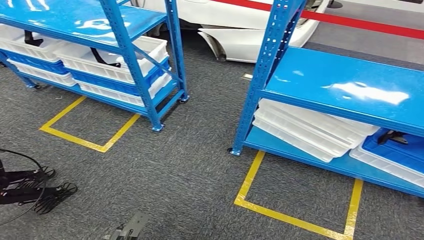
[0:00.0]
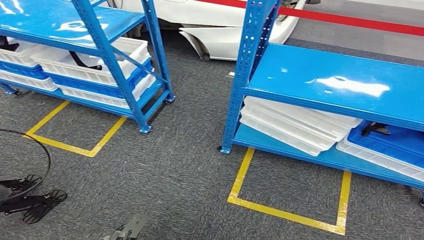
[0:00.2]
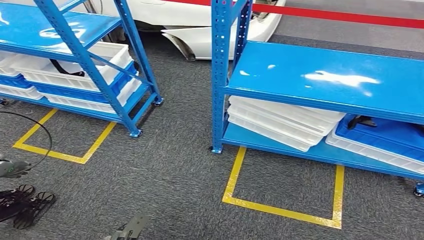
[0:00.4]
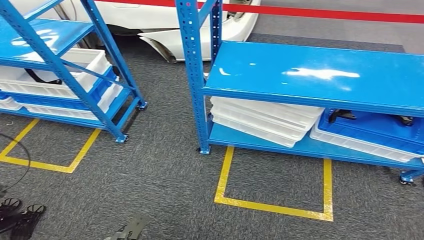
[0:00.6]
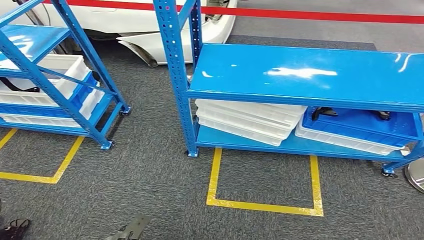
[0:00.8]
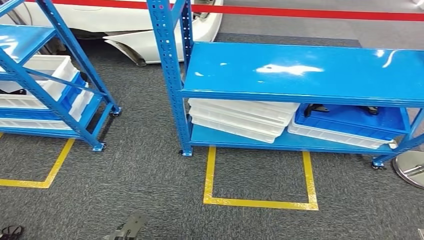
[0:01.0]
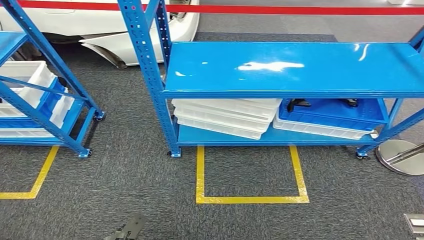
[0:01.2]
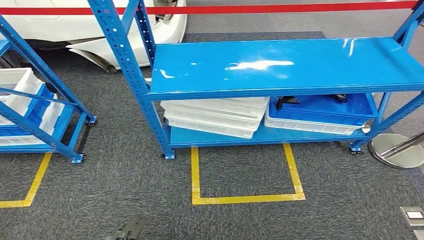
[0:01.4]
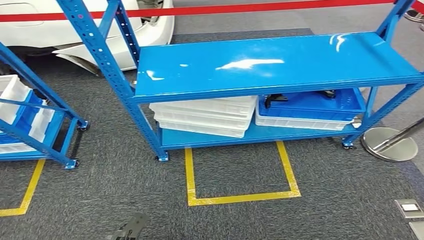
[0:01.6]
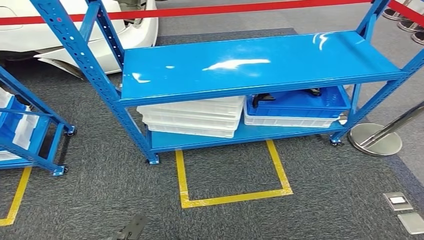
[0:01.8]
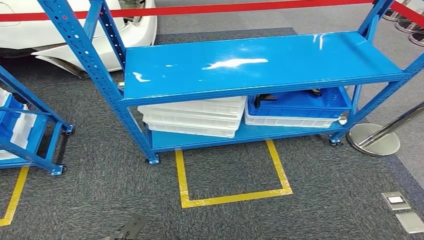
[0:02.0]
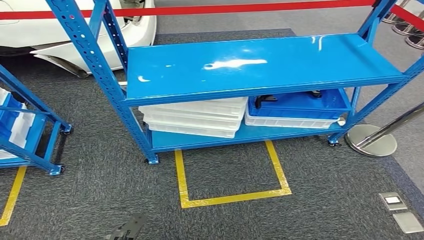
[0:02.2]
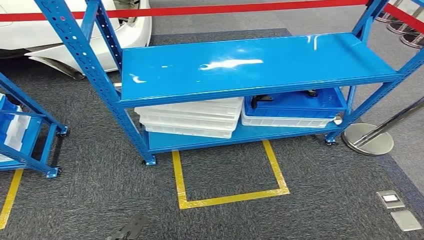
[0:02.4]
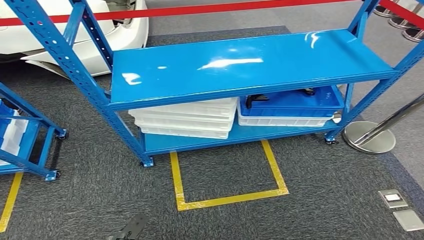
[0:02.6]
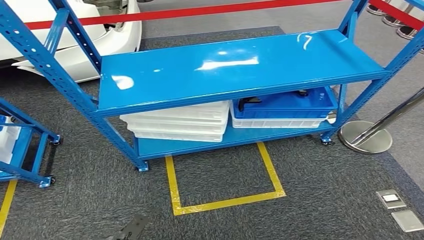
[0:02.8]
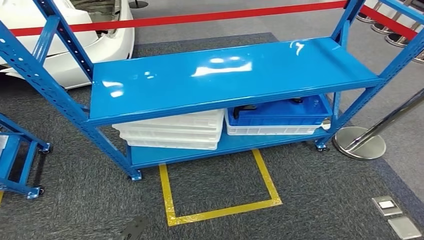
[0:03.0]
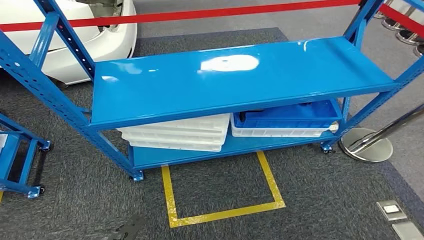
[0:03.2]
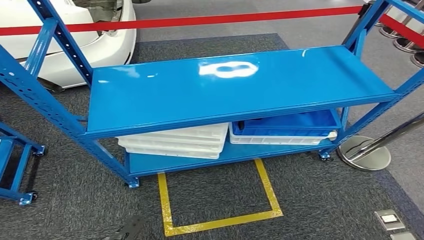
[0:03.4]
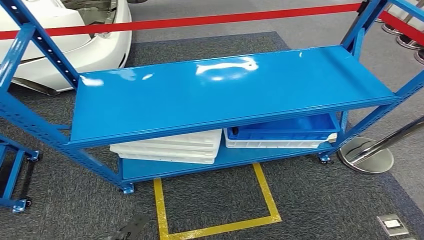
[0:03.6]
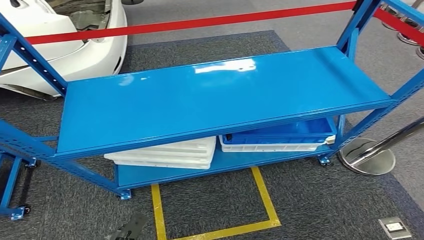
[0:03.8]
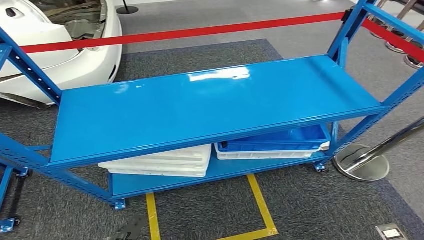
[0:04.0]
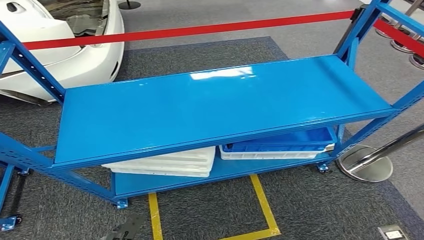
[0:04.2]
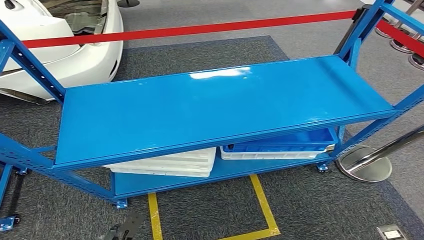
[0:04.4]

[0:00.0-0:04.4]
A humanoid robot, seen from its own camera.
Step, 0:00.0 to 0:04.4: Move to the initial position of the shelf.
